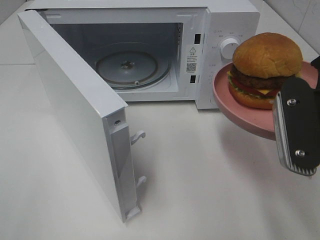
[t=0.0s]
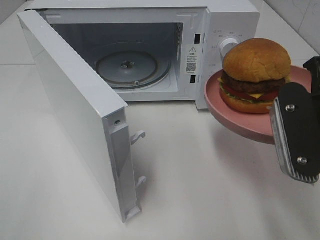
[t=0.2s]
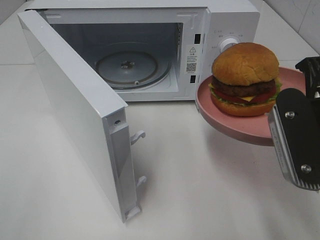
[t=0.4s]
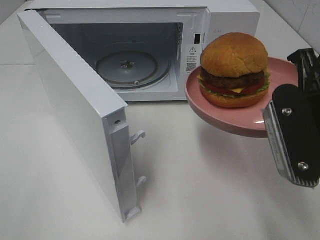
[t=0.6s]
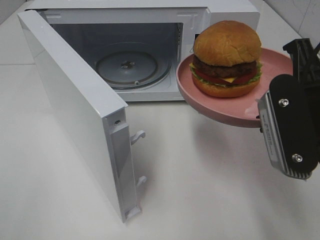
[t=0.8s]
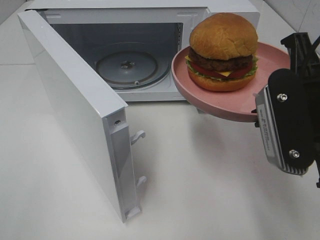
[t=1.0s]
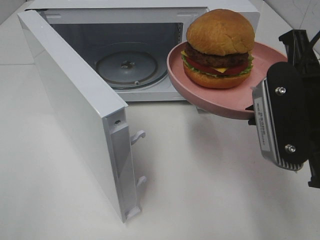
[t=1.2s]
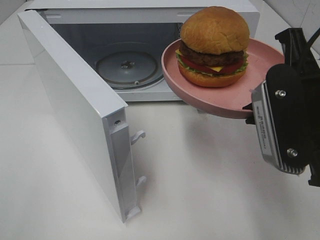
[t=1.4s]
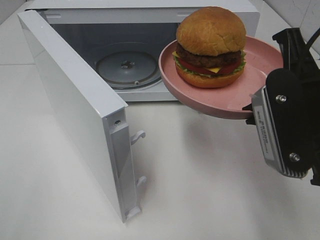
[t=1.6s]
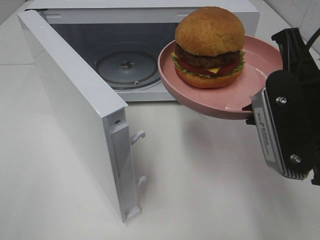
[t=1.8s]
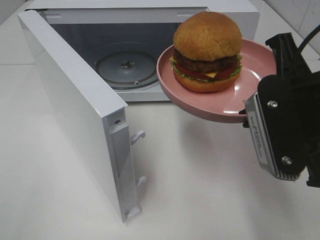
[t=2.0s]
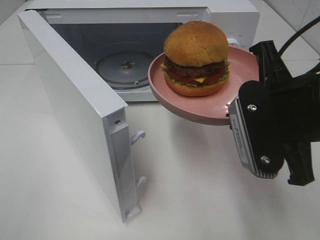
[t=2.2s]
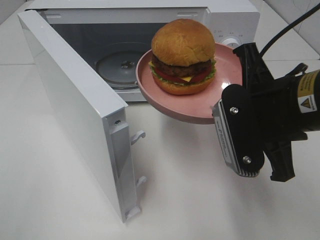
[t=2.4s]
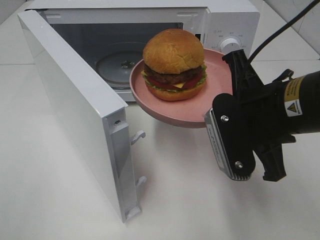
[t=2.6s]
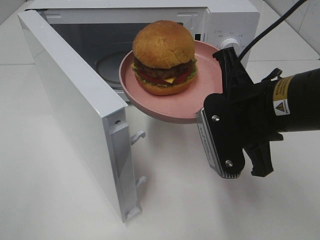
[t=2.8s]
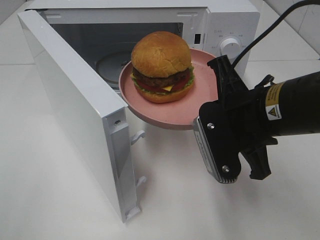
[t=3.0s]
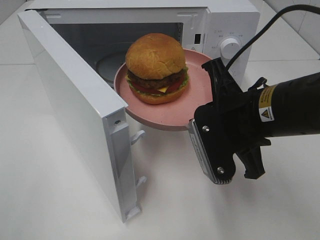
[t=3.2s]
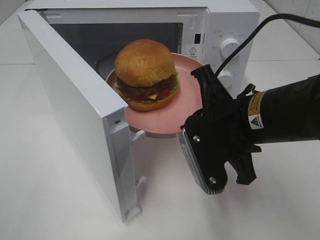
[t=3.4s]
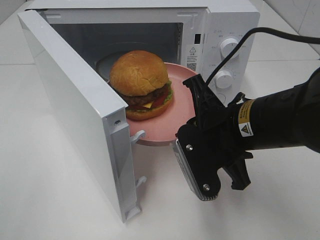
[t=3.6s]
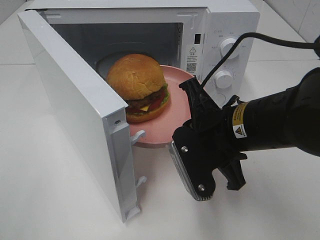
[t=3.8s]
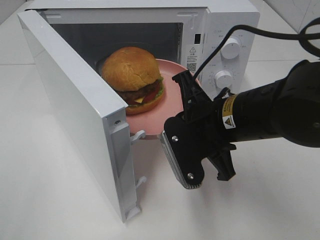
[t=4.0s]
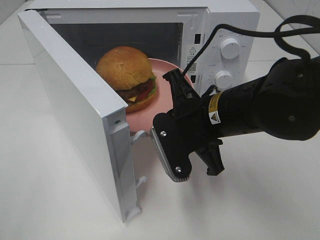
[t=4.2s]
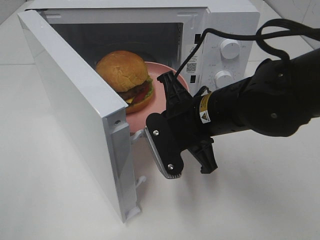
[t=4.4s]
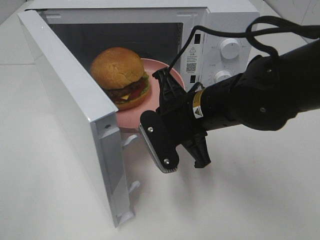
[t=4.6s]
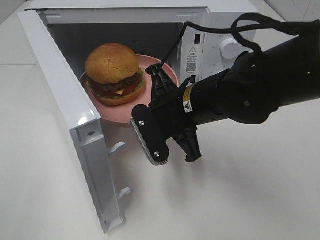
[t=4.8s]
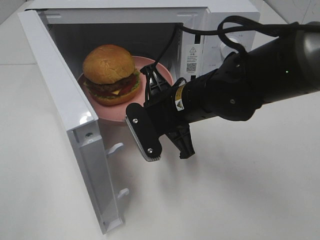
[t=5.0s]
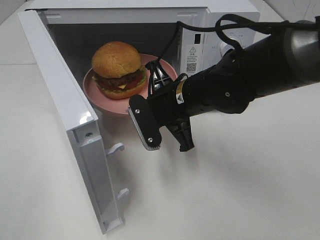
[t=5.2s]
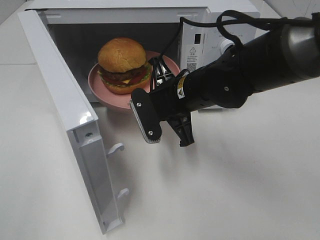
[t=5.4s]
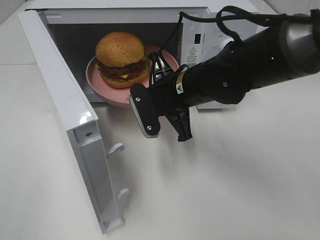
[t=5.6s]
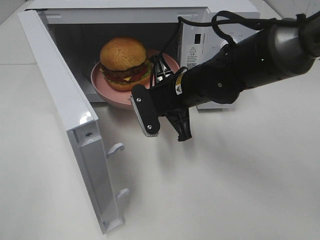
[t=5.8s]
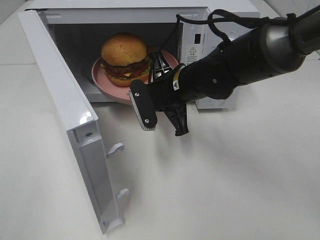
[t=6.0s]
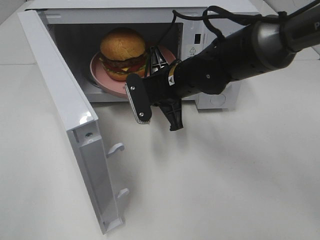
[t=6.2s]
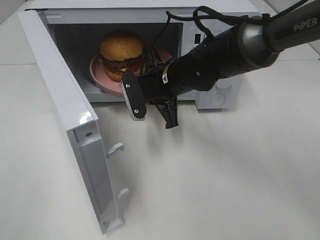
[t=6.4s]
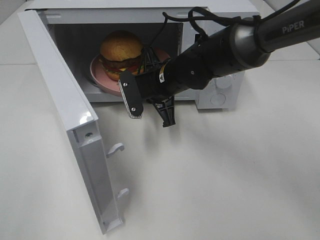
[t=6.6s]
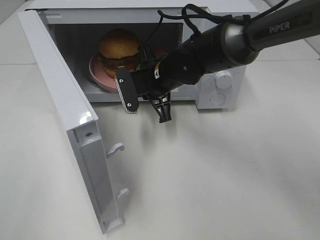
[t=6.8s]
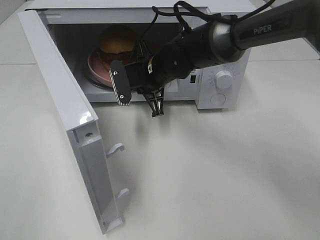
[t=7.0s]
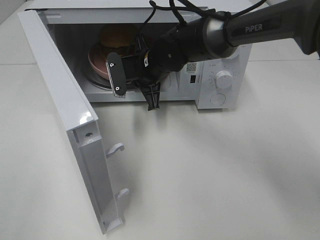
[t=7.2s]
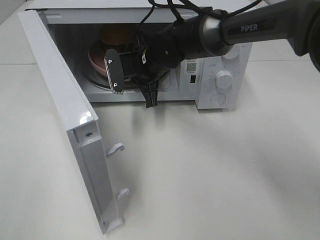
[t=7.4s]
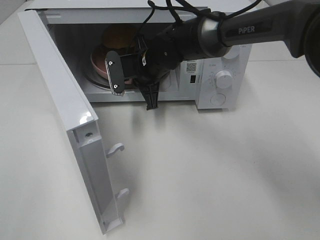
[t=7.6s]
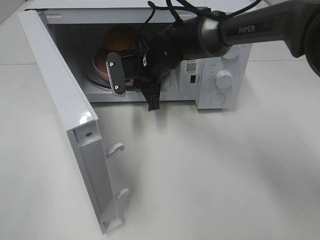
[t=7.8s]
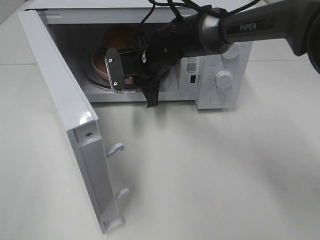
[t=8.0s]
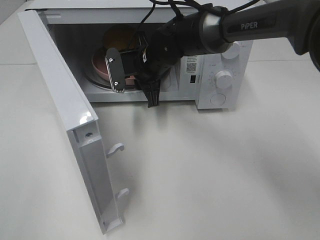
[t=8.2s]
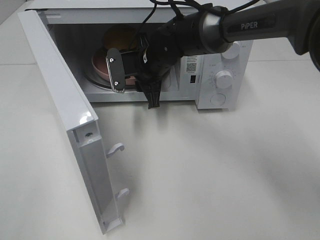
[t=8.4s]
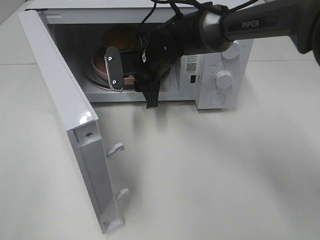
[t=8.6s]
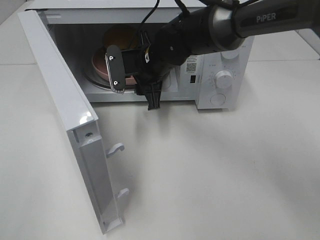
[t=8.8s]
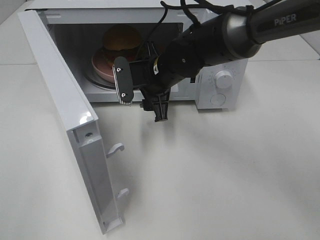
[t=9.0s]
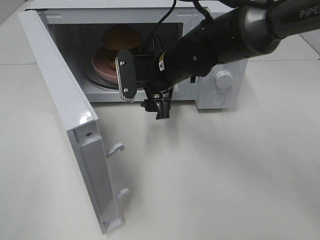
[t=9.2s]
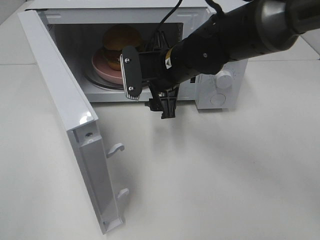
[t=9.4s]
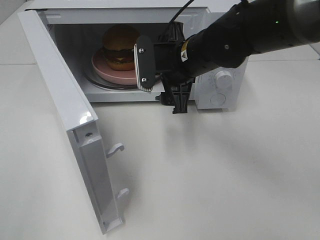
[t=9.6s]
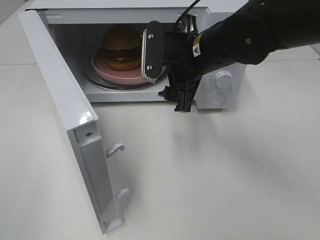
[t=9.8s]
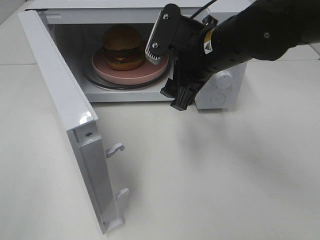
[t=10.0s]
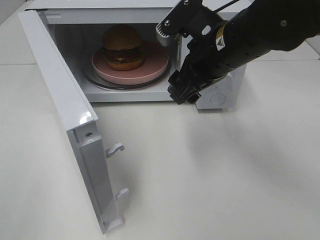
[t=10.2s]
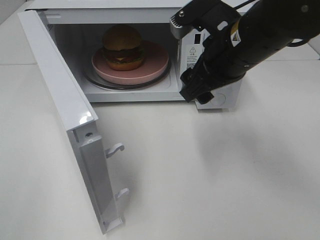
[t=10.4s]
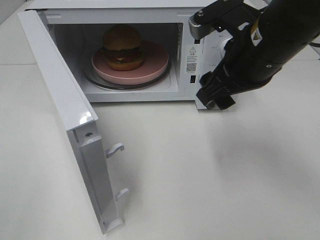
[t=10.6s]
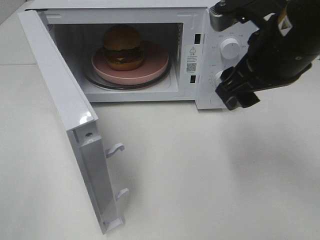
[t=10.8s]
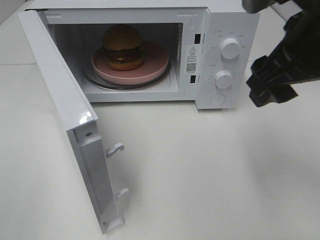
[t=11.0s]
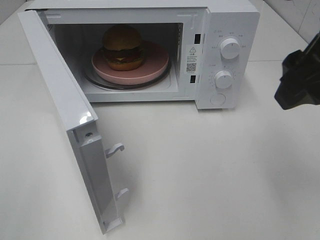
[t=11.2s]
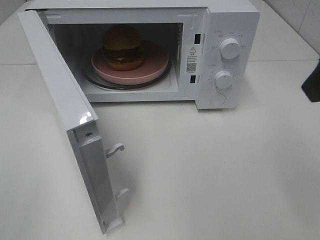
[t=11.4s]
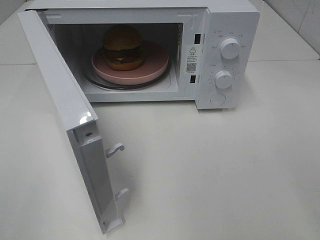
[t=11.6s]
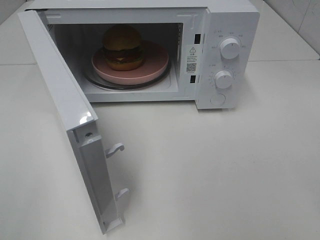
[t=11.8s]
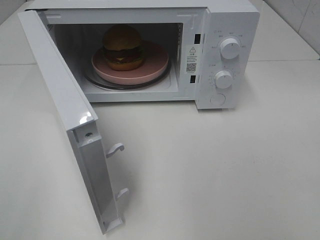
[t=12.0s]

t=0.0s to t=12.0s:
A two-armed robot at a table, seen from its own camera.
Task of the whole recording: Heat the burger.
Step, t=0.0s to t=8.0s: Right hand: place the plate in the microwave.
t=1.6s to t=3.0s: The right gripper heads downward, covering about 5 cm.
t=3.0s to t=4.4s: The right gripper heads to the left, covering about 5 cm.
t=4.4s to t=6.0s: The right gripper travels forward by roughly 10 cm.
t=6.0s to t=7.6s: The right gripper heads forward, covering roughly 10 cm.
t=7.6s to t=9.0s: The right gripper opens.
t=9.0s to t=10.4s: The right gripper is displaced upward, to the right and backward by some 15 cm.
t=10.4s to t=12.0s: The right gripper goes some 30 cm backward, to the right and upward.

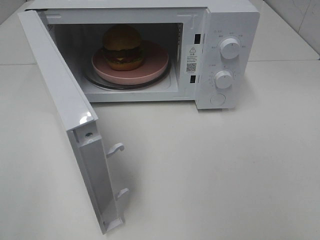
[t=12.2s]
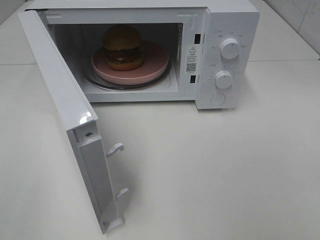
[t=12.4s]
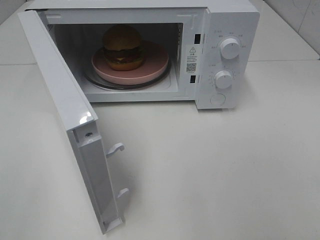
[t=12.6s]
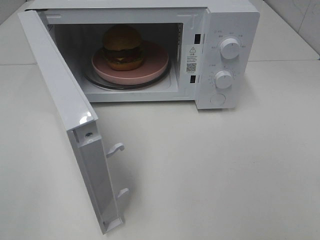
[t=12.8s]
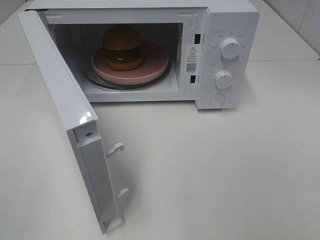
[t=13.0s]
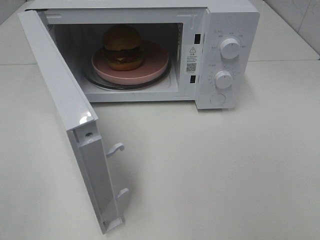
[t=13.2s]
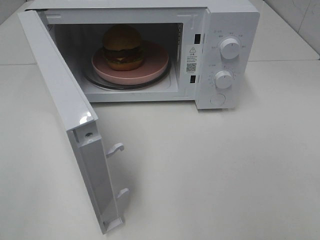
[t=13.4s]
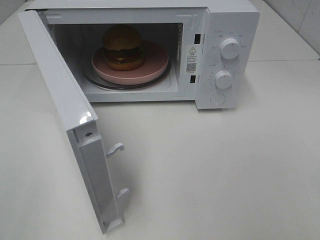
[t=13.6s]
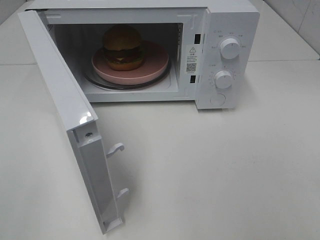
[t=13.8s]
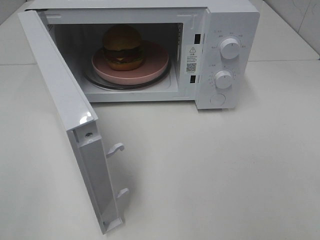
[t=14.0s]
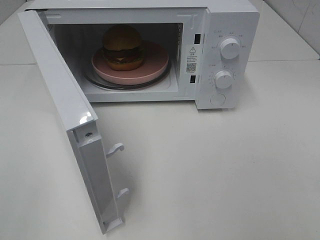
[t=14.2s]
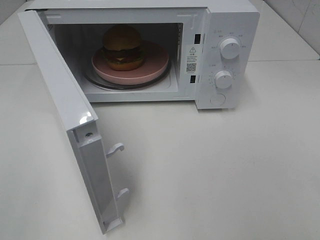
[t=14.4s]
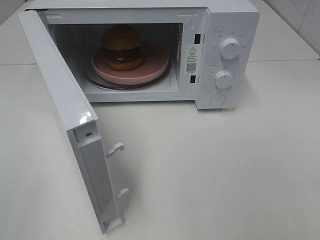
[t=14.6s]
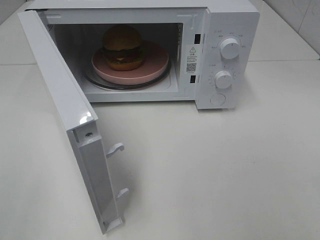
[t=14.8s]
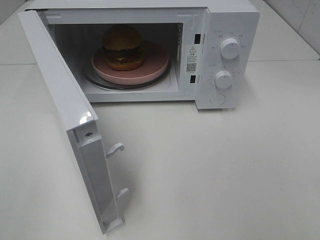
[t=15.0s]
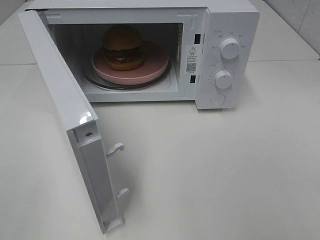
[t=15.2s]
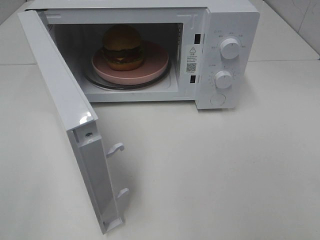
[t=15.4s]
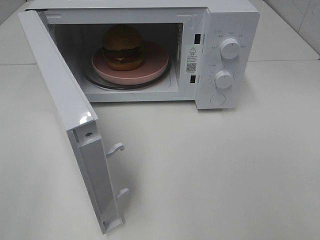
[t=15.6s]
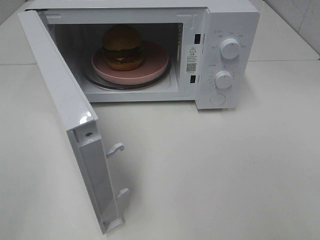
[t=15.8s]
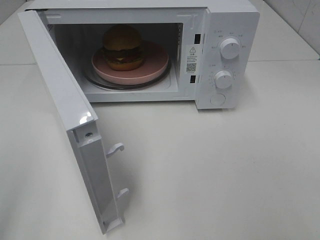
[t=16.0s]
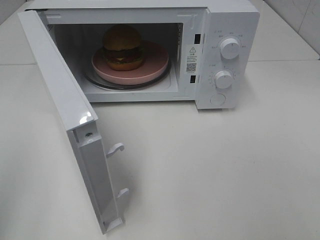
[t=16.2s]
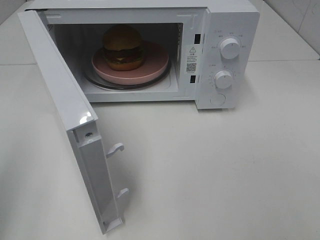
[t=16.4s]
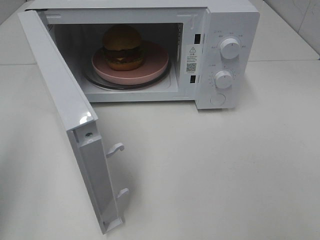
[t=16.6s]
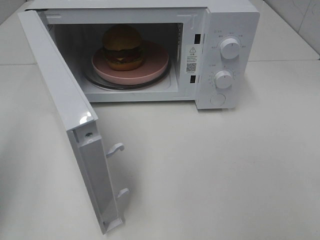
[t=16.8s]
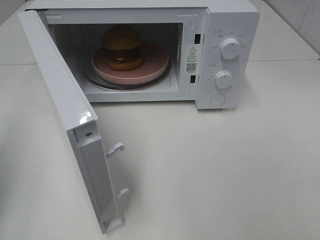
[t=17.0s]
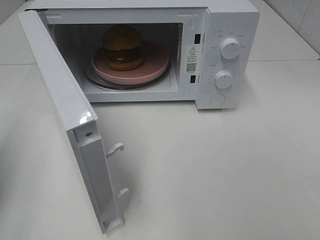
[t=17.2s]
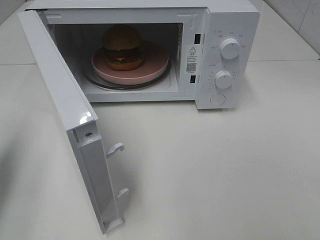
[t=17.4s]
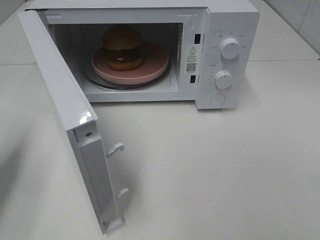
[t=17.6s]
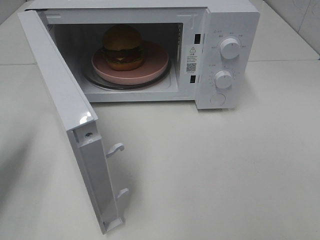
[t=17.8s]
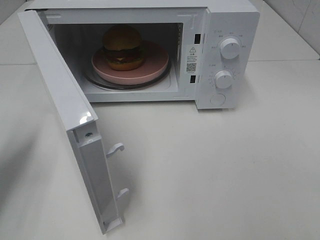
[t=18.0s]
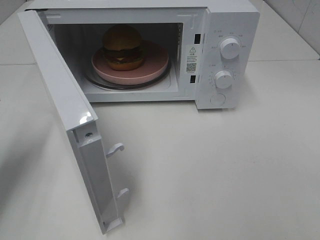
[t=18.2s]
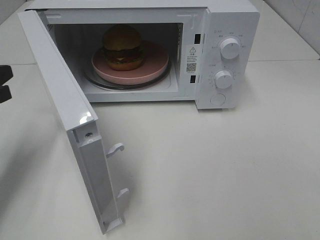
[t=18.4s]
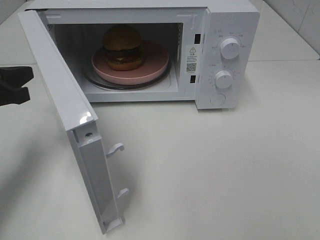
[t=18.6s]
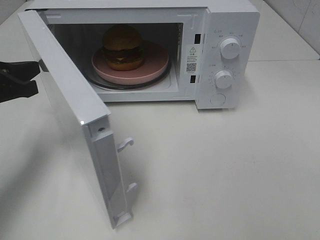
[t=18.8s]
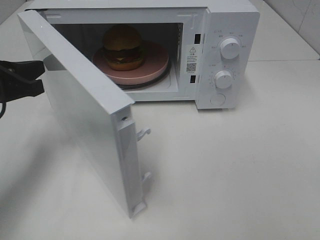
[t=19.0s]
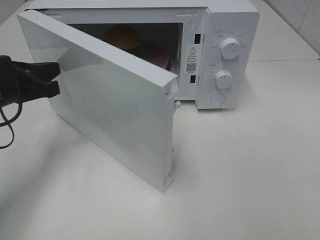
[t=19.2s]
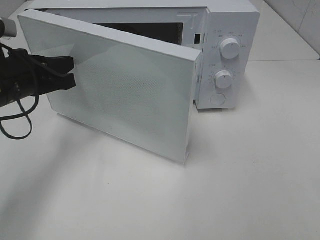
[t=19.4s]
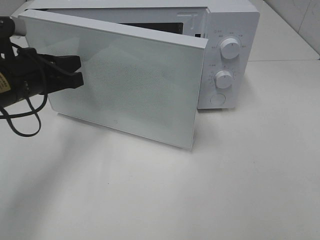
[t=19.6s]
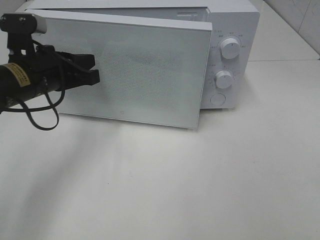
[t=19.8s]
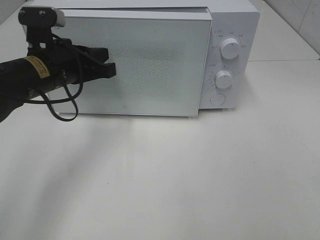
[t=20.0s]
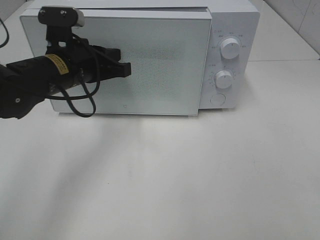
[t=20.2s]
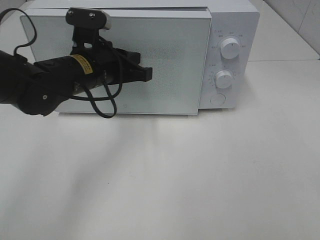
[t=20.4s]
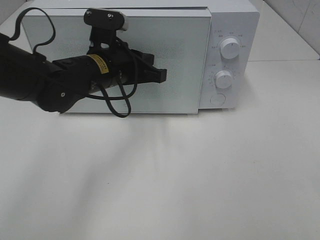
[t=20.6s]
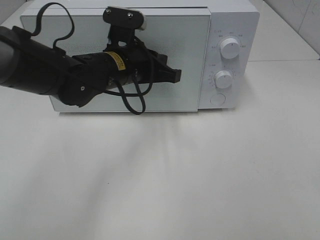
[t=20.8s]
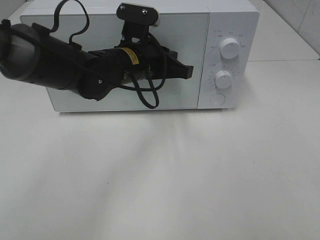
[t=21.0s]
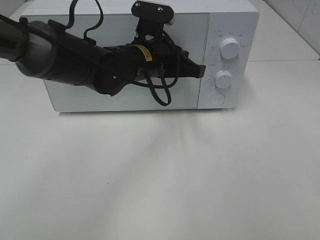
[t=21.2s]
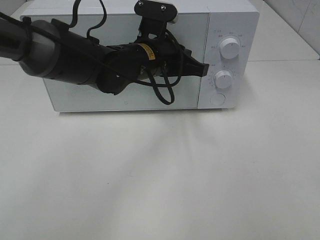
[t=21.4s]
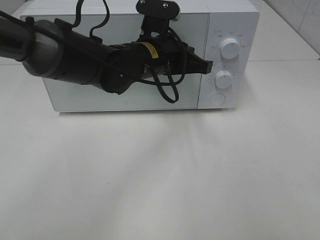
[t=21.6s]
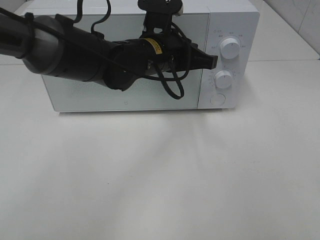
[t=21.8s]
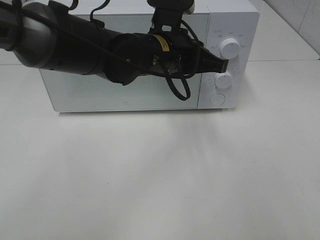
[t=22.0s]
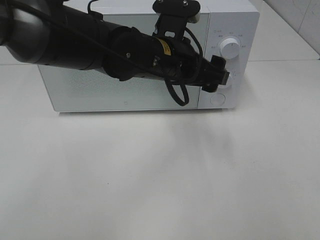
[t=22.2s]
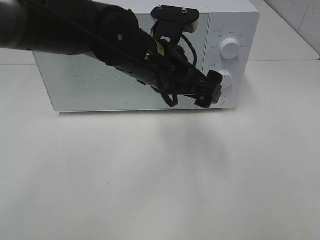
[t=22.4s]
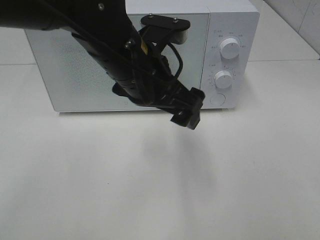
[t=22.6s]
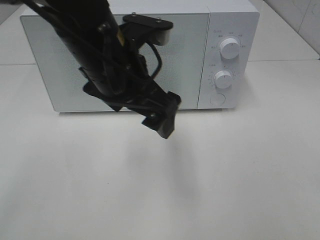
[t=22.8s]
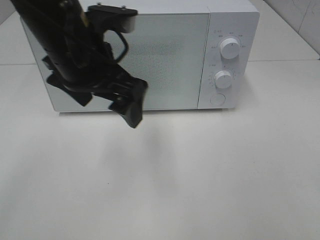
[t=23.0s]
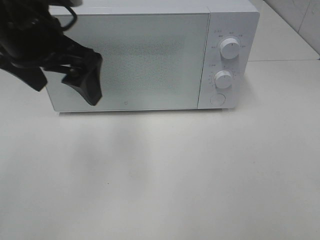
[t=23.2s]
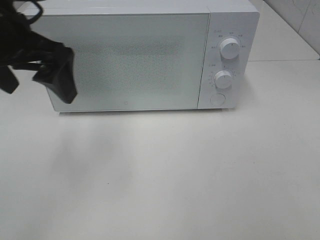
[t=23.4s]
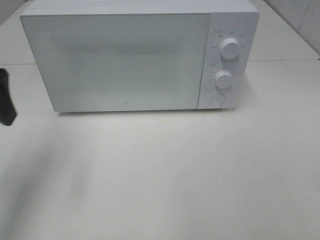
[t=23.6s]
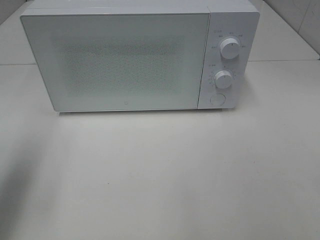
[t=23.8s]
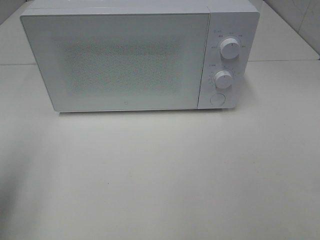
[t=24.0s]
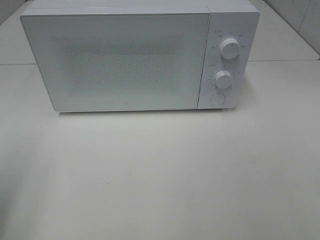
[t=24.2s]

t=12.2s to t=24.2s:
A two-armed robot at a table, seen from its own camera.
Task of the whole recording: Heat the burger.
Step, t=12.2s to t=21.0s: Left hand: close the microwave door.
t=13.8s to t=15.2s: The two grippers keep their place.
t=15.2s to t=16.6s: The left gripper is displaced forward by some 15 cm, and closes its fingers.
t=16.6s to t=18.2s: The left gripper travels downward and forward by approximately 20 cm.
t=18.2s to t=19.8s: The left gripper shifts approximately 15 cm to the right and forward.
t=19.8s to t=21.2s: The left gripper moves to the right, some 15 cm.
t=21.2s to t=22.6s: The left gripper shifts some 10 cm backward and upward, and opens its fingers.
t=22.6s to t=24.2s: The left gripper moves to the left and backward, some 35 cm.
